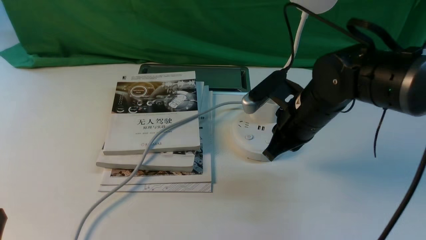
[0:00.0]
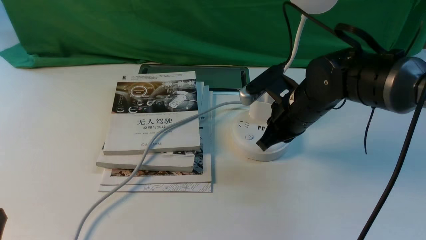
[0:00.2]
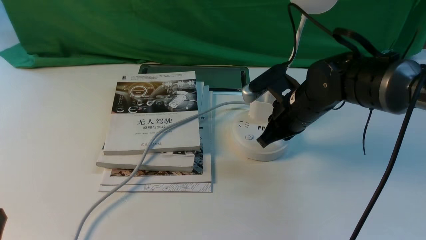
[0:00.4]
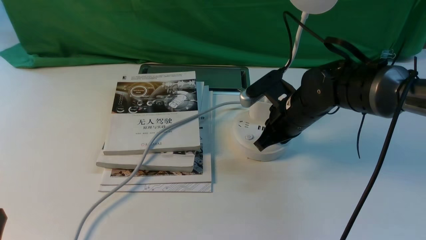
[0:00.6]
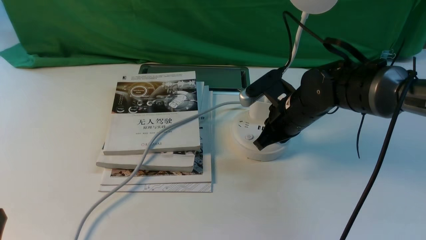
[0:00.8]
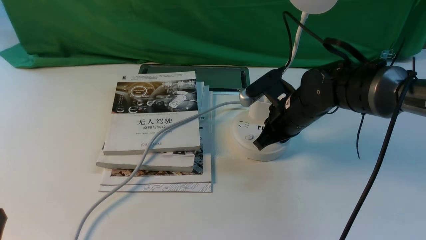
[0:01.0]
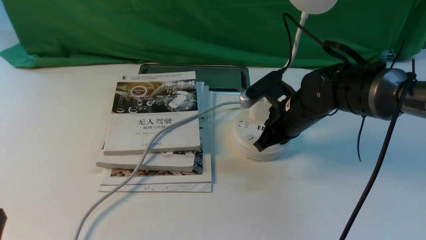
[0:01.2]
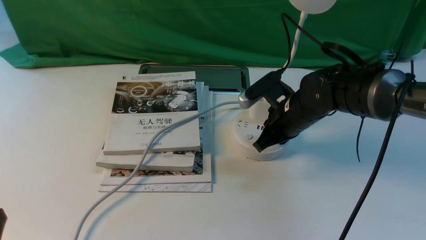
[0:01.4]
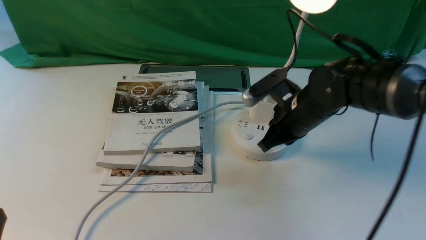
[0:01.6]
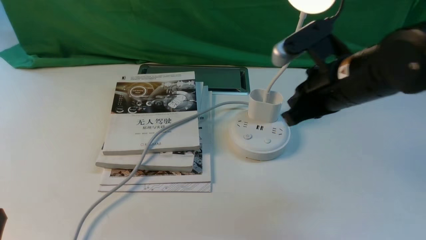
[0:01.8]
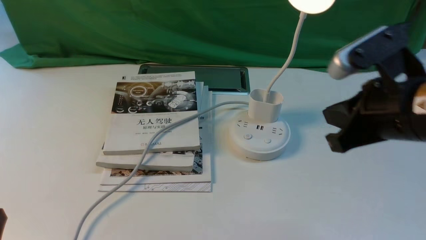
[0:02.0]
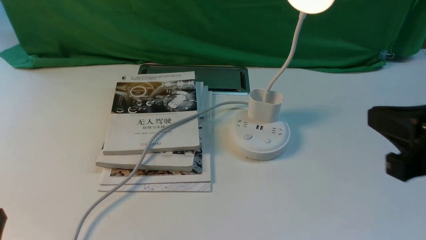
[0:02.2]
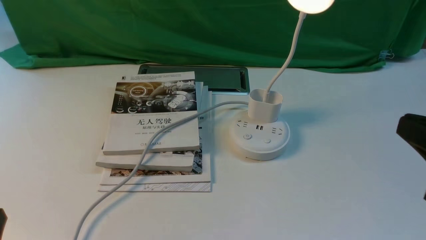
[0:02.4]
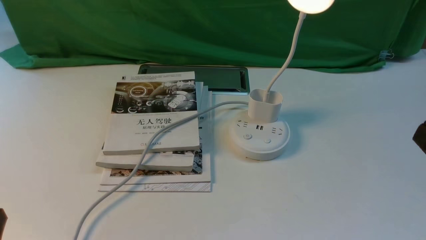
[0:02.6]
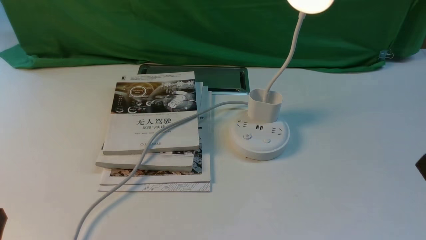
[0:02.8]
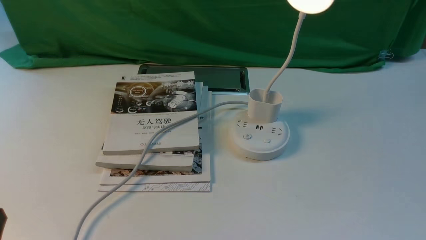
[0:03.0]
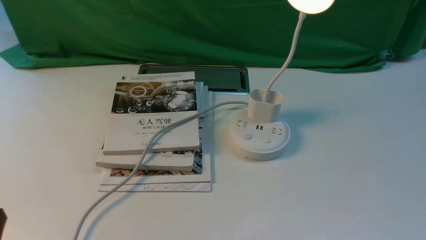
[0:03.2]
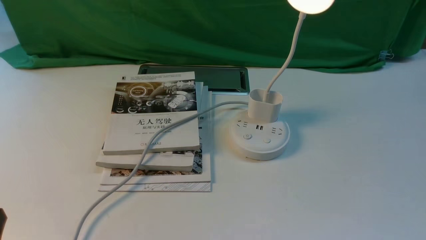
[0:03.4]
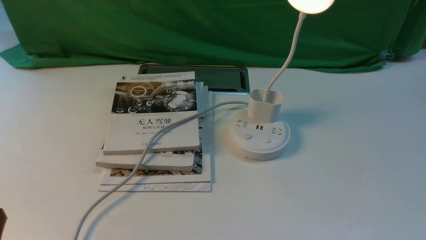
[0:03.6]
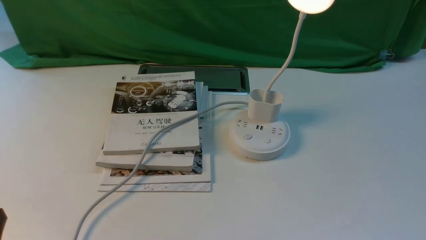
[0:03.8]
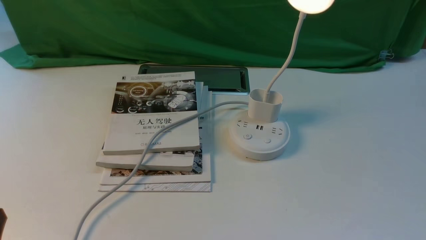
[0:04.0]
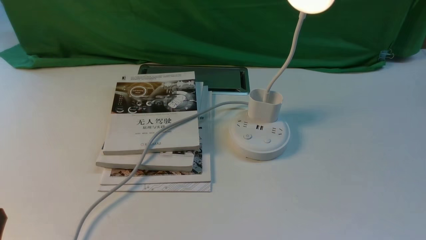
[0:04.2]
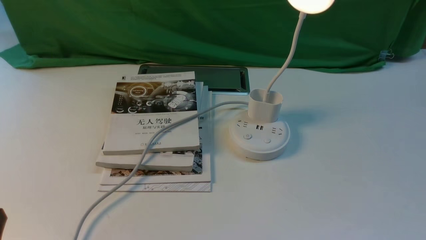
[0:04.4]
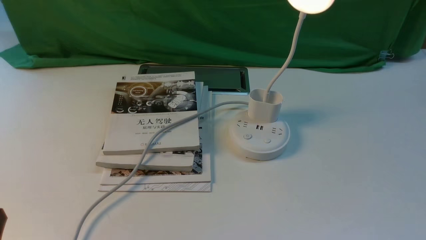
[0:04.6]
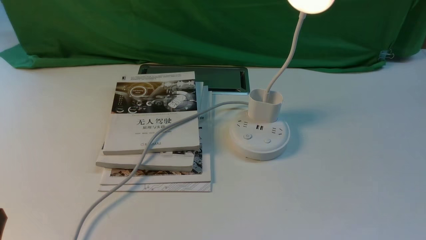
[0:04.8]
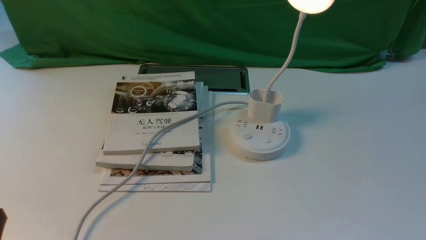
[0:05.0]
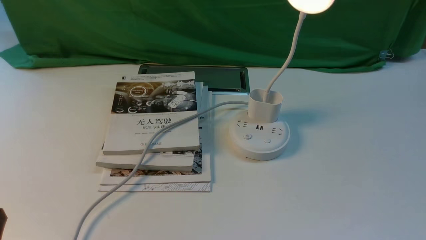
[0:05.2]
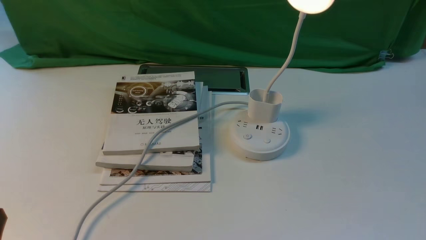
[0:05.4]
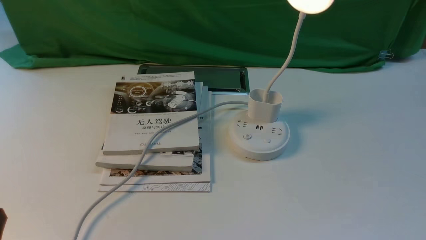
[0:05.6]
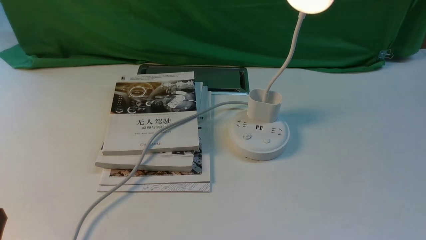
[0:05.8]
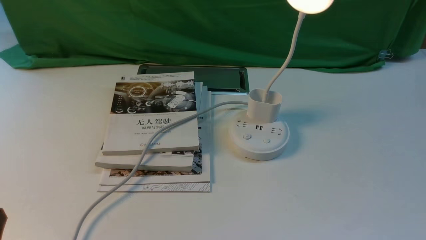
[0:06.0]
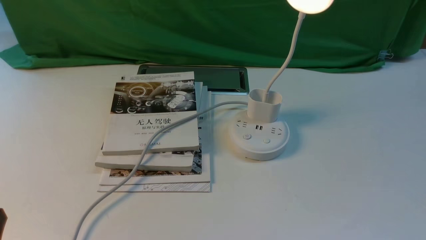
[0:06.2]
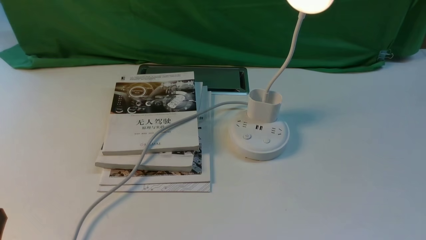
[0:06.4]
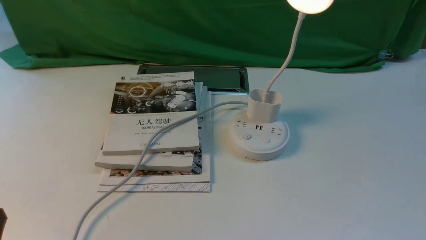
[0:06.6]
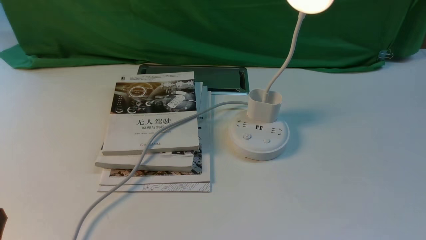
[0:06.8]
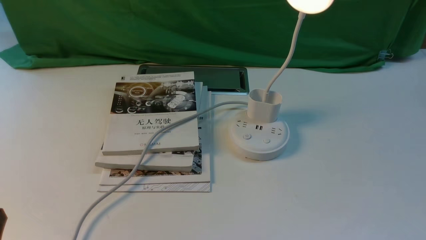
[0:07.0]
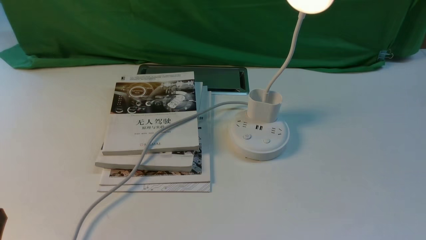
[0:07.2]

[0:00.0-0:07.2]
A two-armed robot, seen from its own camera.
0:00.0 to 0:01.4: The grippers make only small movements.
0:01.4 to 0:02.8: The right gripper goes about 35 cm backward and to the right.
0:04.4 to 0:07.2: Both grippers stay put.
